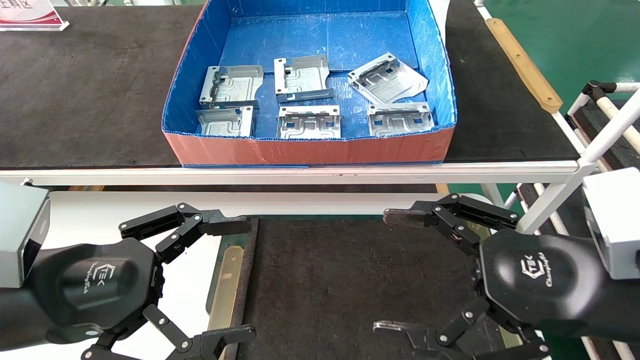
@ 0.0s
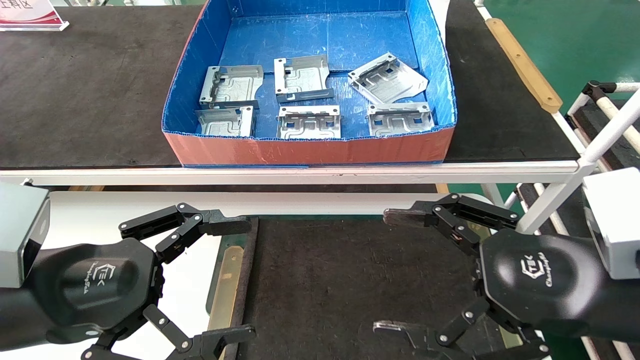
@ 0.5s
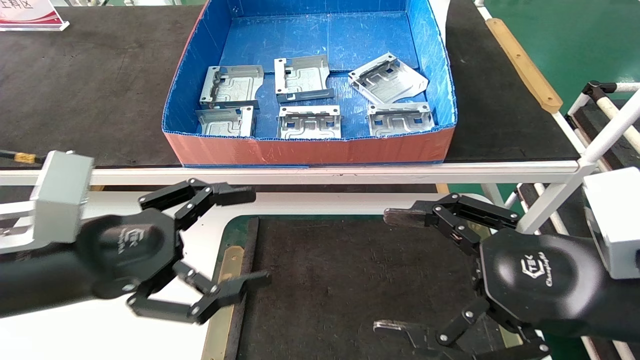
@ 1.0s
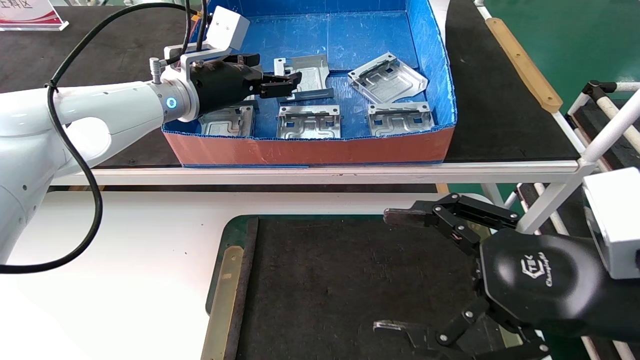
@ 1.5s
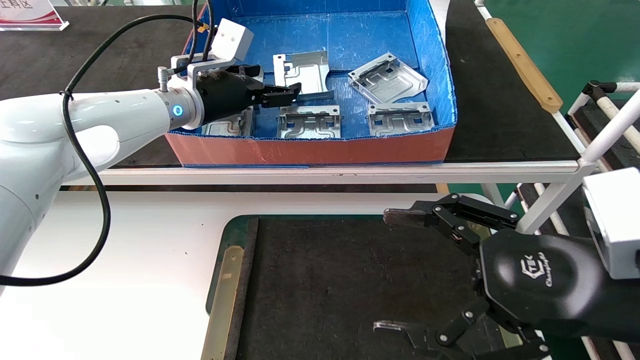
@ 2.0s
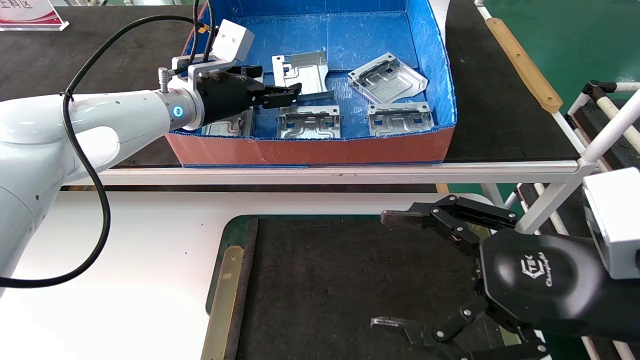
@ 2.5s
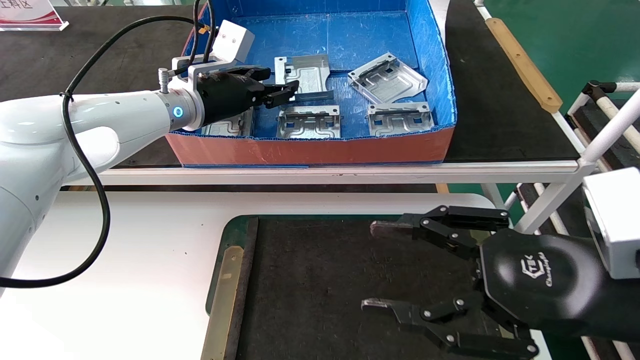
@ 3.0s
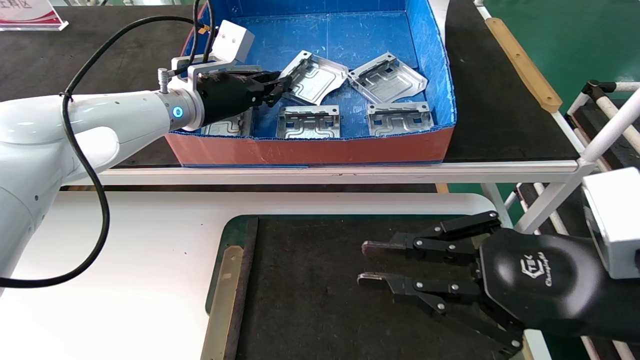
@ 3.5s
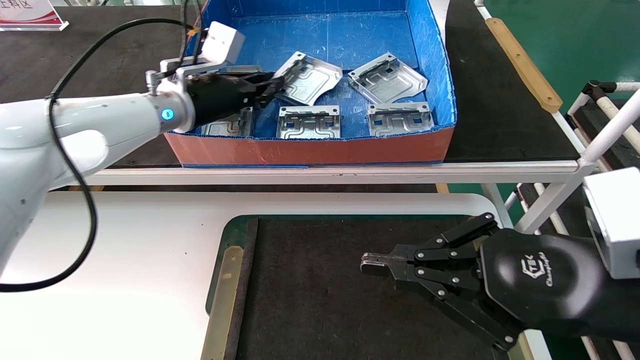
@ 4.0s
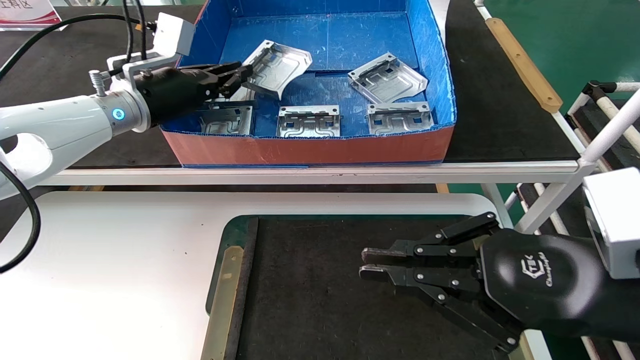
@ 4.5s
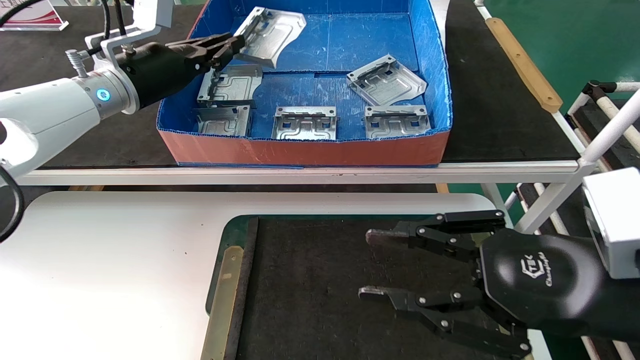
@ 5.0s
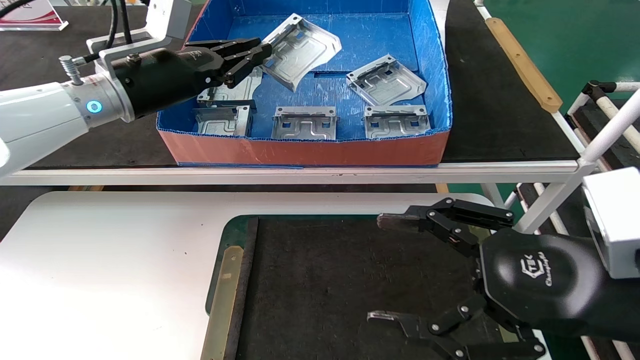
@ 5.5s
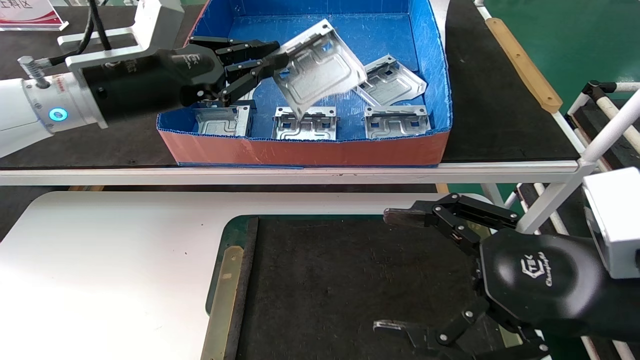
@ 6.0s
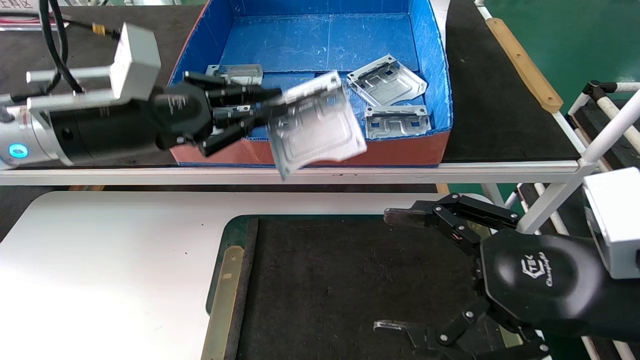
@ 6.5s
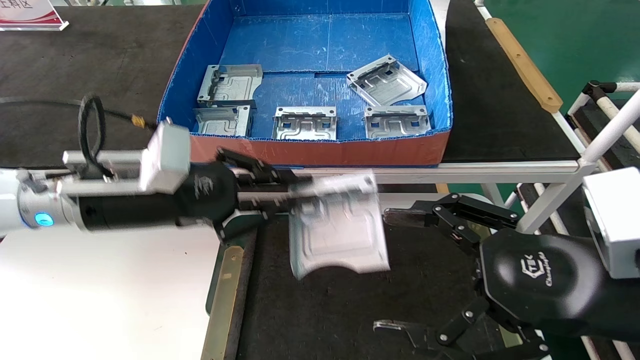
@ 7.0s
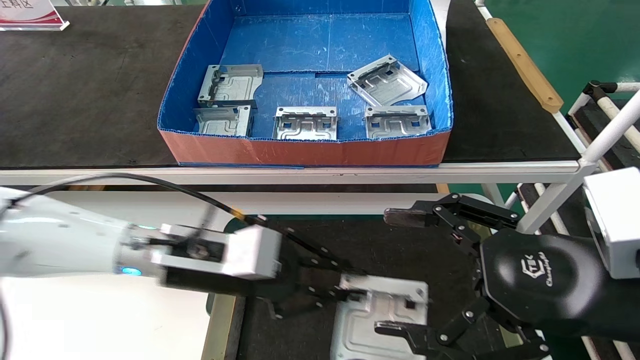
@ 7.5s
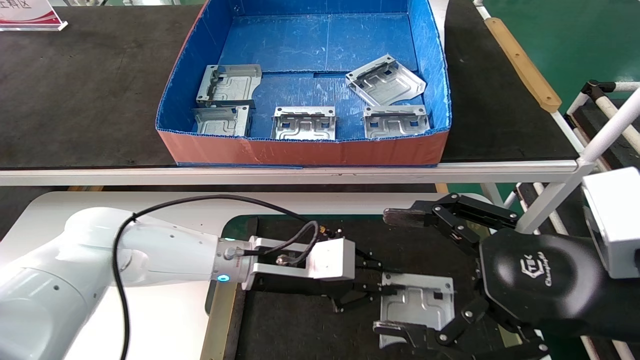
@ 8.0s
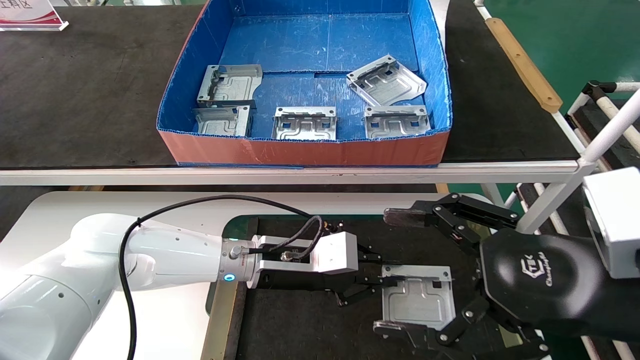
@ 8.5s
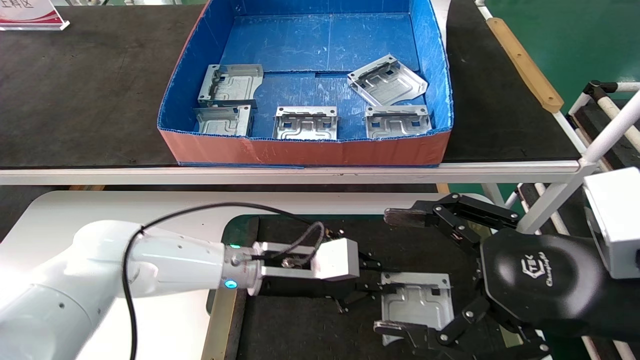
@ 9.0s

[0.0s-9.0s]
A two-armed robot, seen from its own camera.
Task of the whole recording: take the accessories out of the box and place them on the table.
Step, 1.5s to 5.5s: Pick up the hard drive bracket from the feeding area.
0.0s to 2.0s: The left gripper goes approximately 15 cm forward and upward.
2.0s to 4.5s: The left gripper shifts about 15 cm forward and to the right.
4.5s to 7.0s: The right gripper closes its fingers, while the left gripper is displaced to the left by about 10 cm, and closes up.
7.0s to 9.0s: The right gripper opens. Meanwhile the left gripper is displaced backward and downward by about 15 cm.

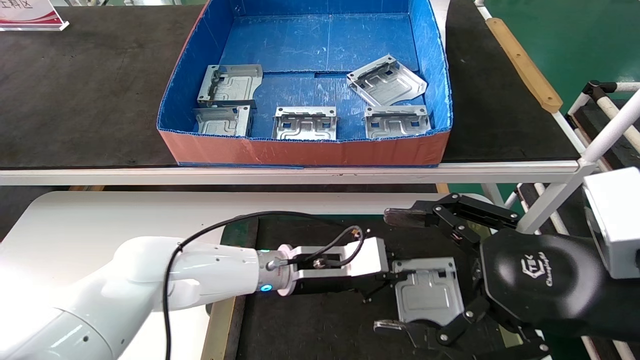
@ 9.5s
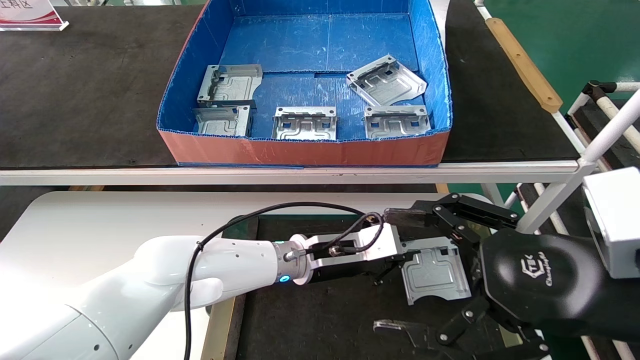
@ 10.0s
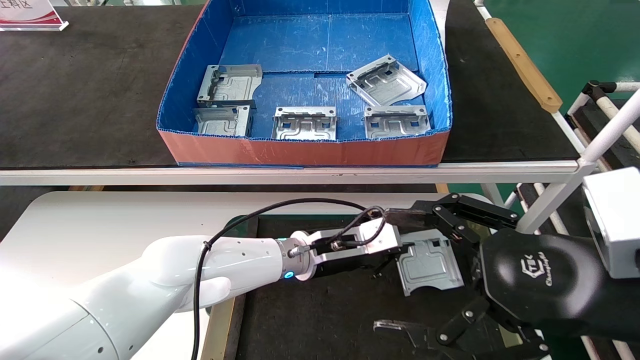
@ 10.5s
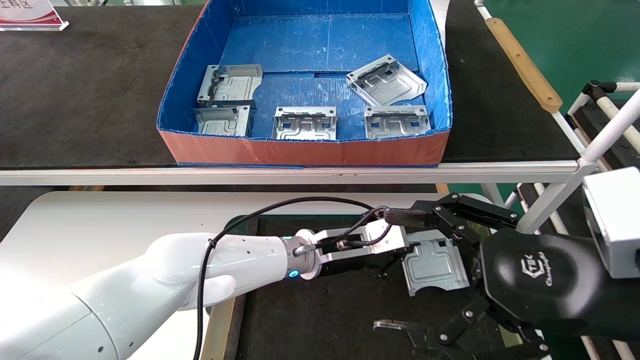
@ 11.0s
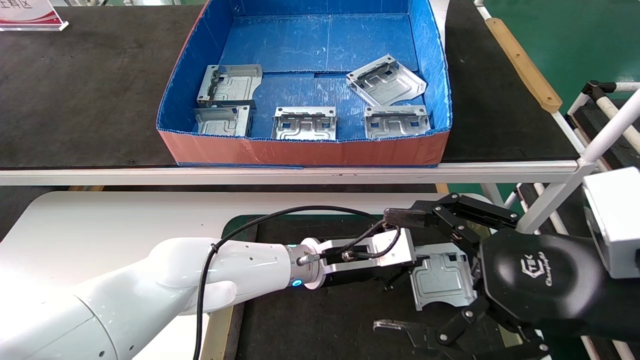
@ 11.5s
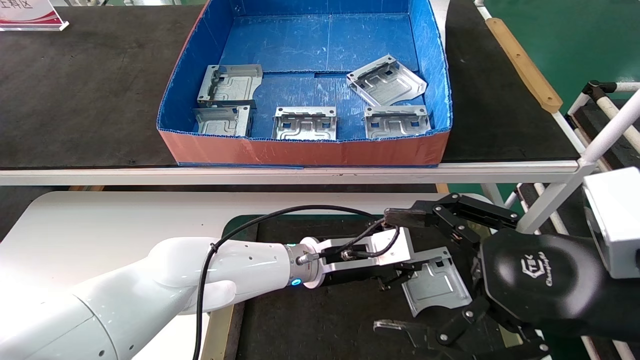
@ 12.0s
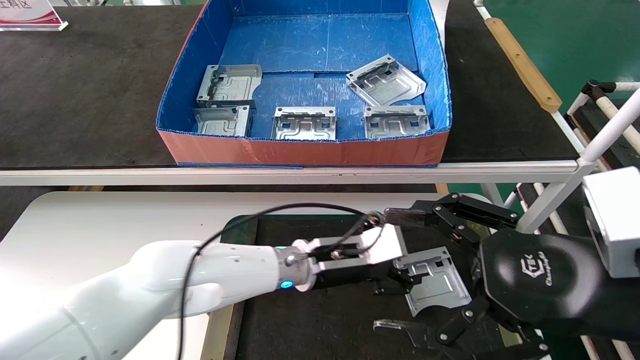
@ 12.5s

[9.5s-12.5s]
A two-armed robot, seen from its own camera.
Task of the whole recording: take the accessories out of the box and place them on the table.
Step, 9.5s to 12.5s: Place the hard drive bracket into the box.
9.5s to 11.0s: The left gripper shifts some 10 cm to the right, downward and forward.
11.0s to 12.5s: The left gripper is displaced to the right by about 5 cm.
